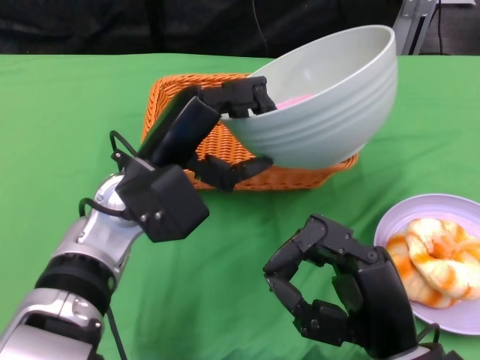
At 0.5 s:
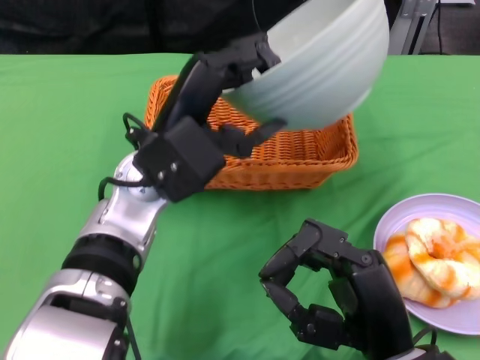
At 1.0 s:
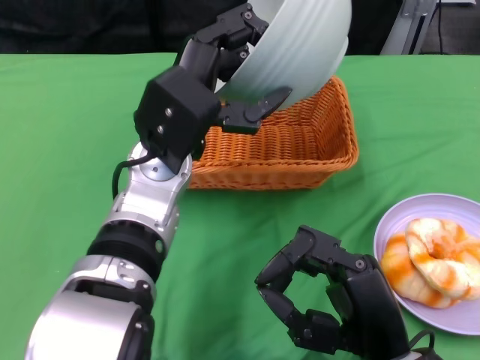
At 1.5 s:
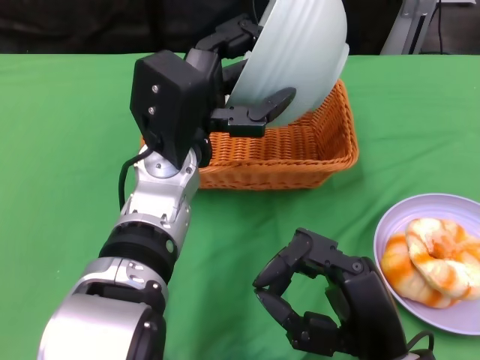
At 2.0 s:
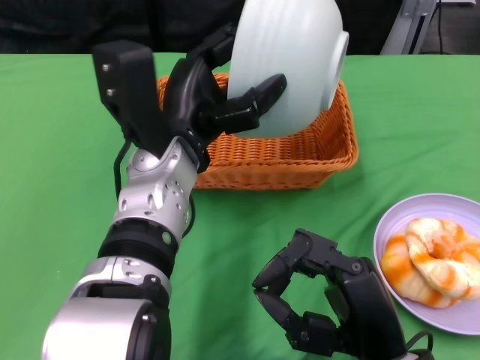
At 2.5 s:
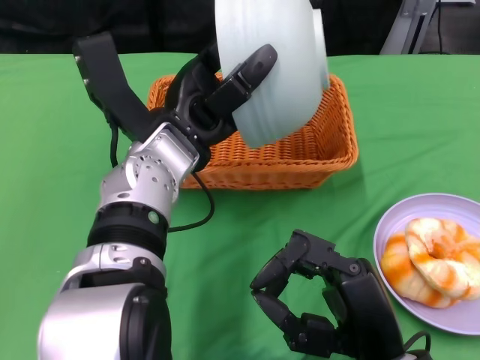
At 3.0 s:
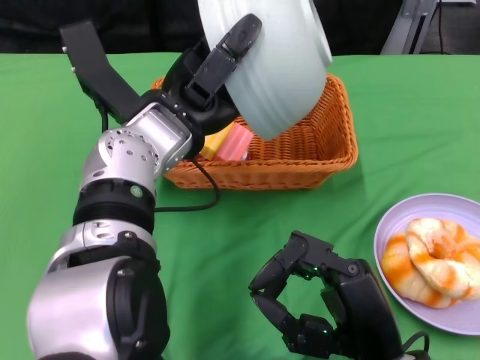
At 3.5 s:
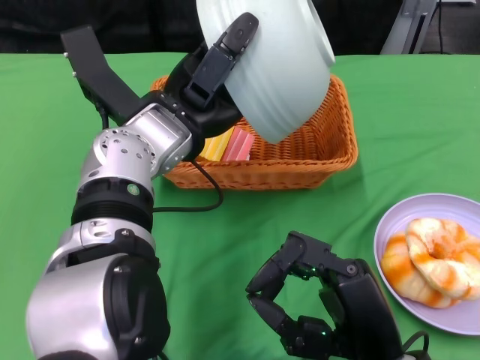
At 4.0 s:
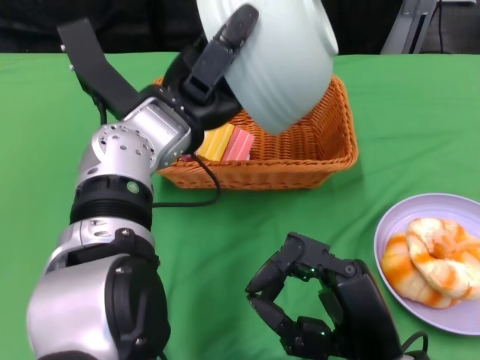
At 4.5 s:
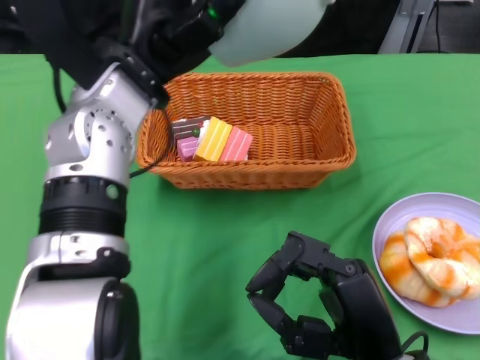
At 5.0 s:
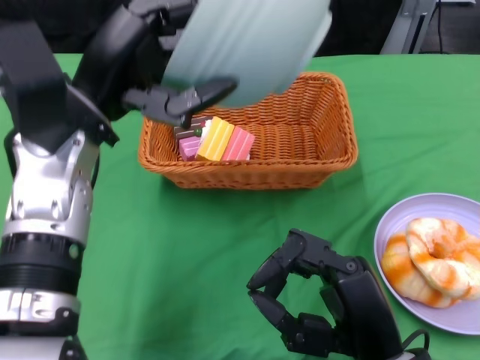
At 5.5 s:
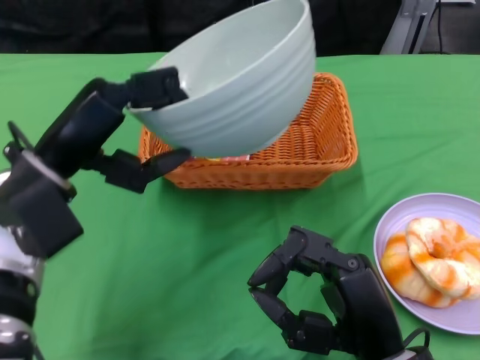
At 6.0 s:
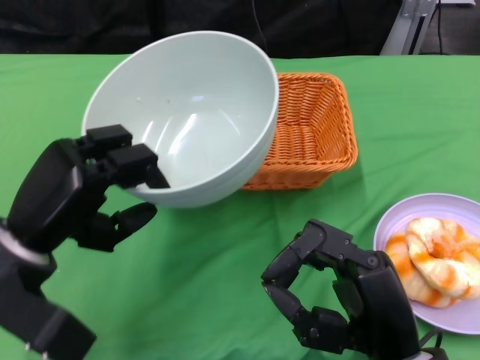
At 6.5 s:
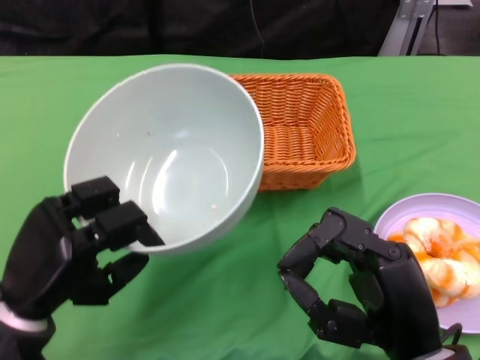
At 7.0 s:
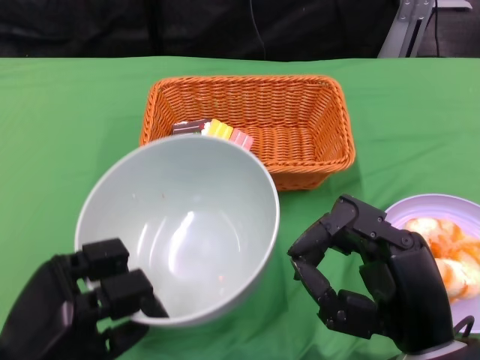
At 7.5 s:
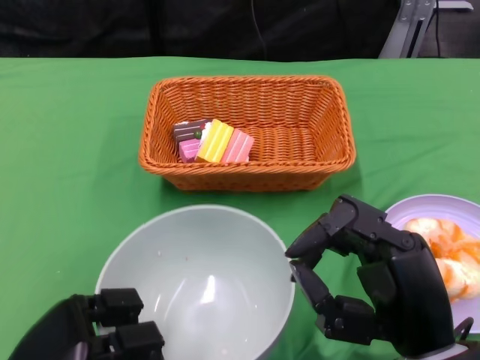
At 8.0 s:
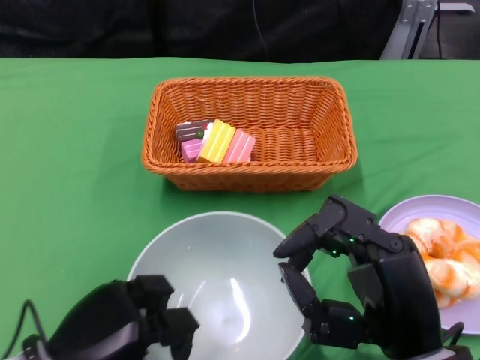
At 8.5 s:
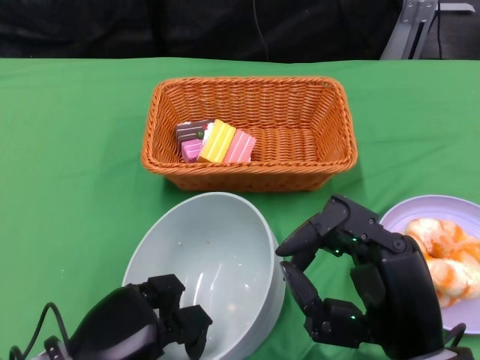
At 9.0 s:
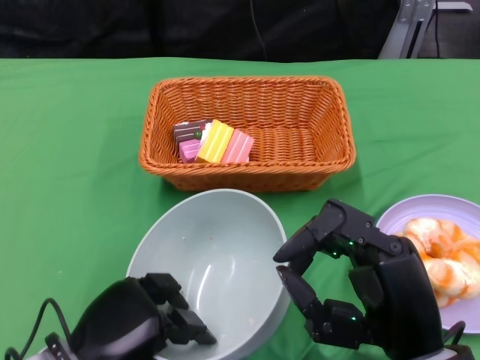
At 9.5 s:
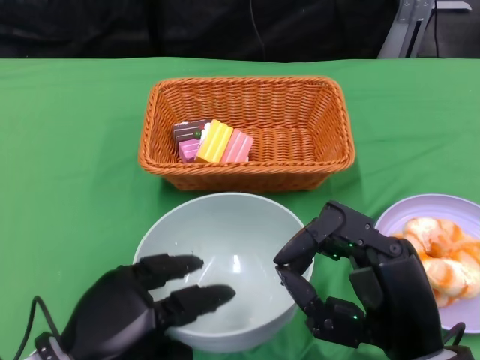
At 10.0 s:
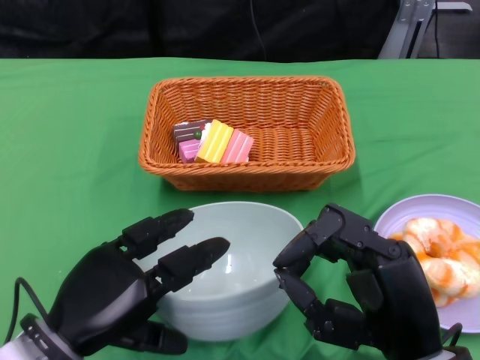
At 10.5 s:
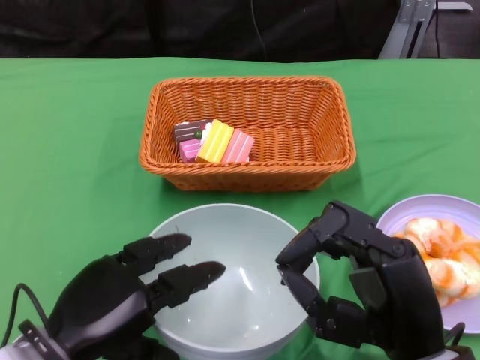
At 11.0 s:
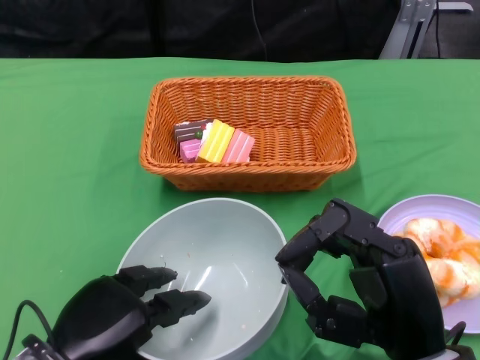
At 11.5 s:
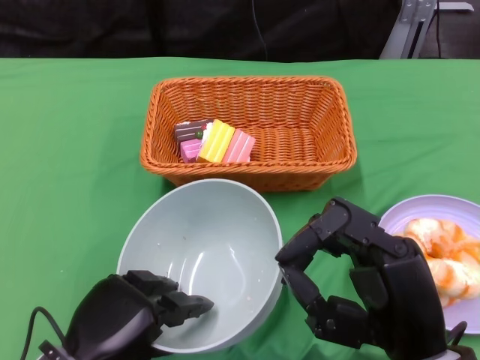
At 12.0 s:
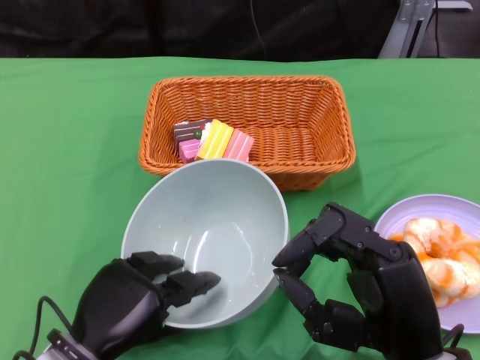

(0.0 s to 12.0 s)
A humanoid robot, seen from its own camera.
Step, 0.0 s - 5.0 s: Pour the cake into the basket with the left gripper.
4.0 s - 6.0 s: The left hand goes roughly 15 cm to the left, backward and downward.
6.0 s - 8.0 s: The left hand goes approximately 10 cm downward and backward.
10.0 s - 12.0 s: The left hand is displaced downward by approximately 5 cm.

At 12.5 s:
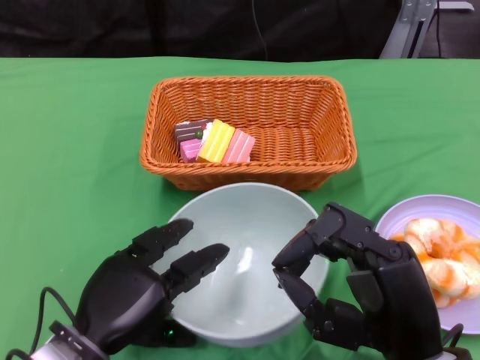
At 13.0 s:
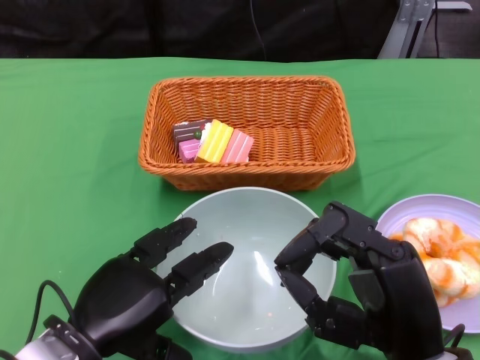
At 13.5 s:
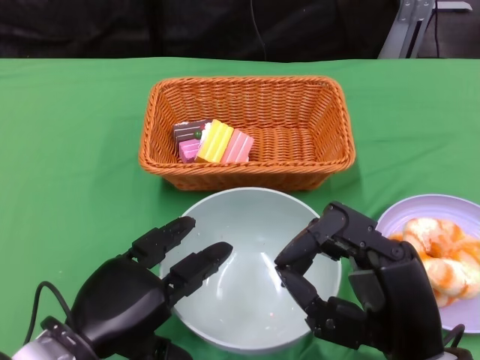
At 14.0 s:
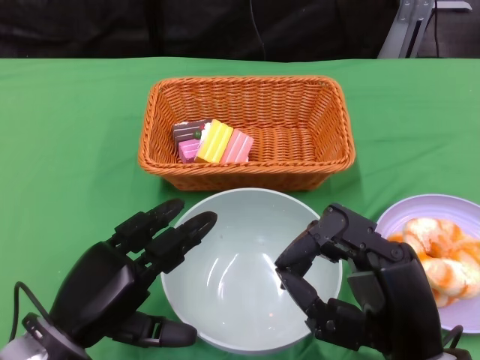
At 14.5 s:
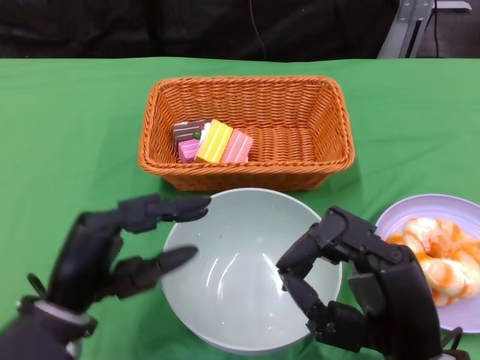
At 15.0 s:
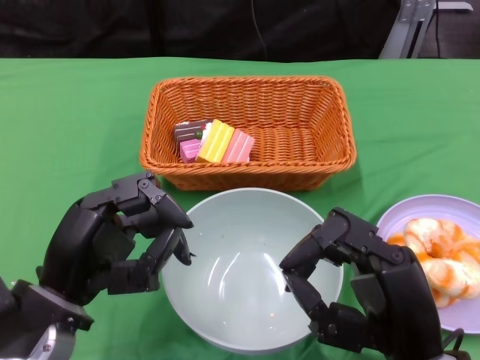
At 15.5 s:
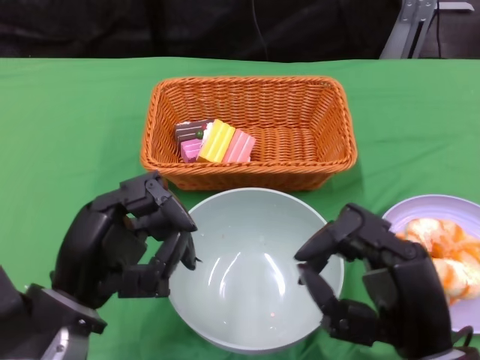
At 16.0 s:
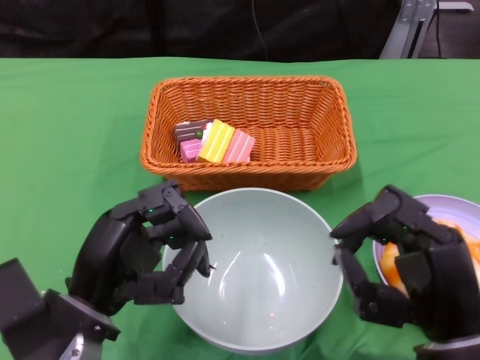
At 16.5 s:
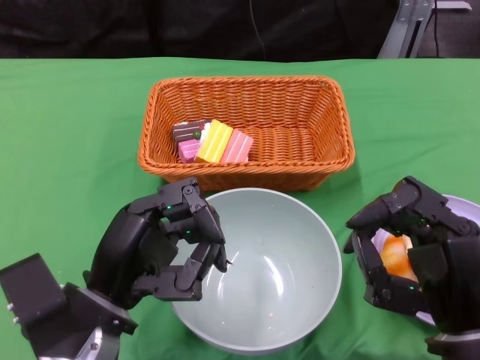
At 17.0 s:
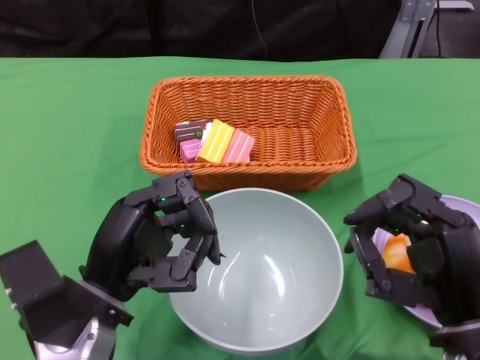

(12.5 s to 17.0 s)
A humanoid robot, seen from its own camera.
14.5 s - 17.0 s: The right hand shifts by about 5 cm.
